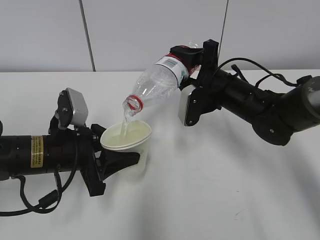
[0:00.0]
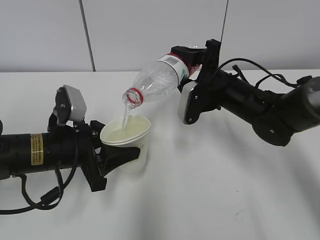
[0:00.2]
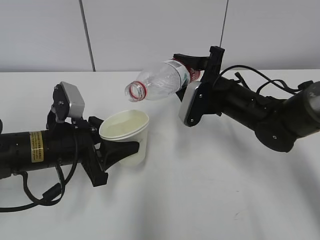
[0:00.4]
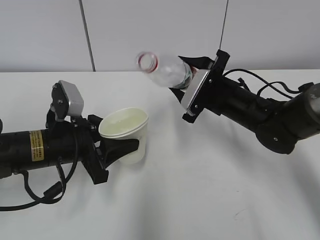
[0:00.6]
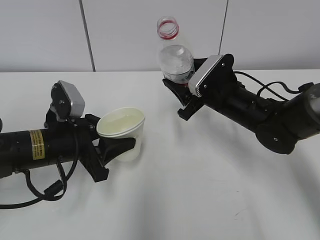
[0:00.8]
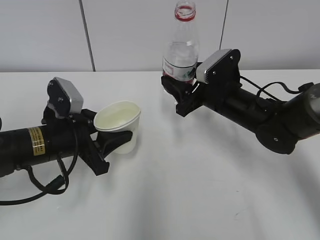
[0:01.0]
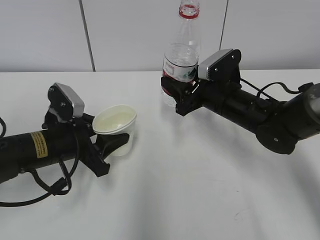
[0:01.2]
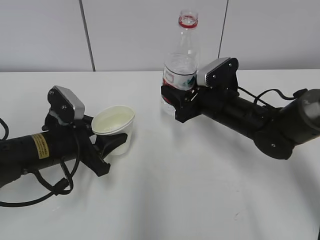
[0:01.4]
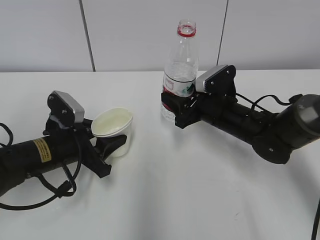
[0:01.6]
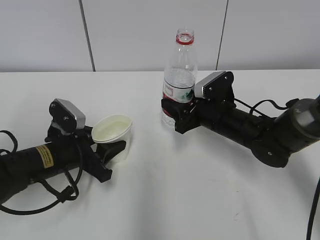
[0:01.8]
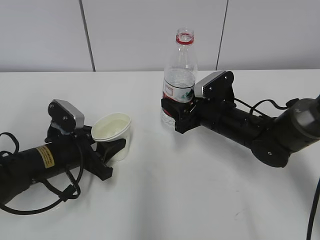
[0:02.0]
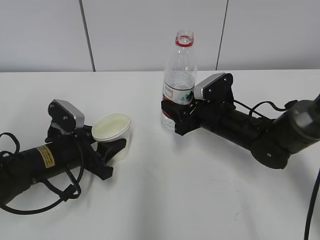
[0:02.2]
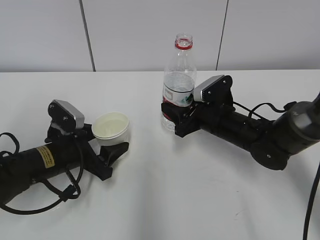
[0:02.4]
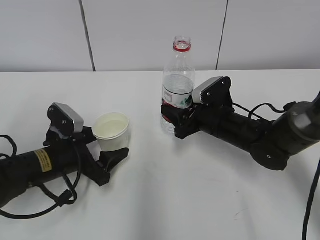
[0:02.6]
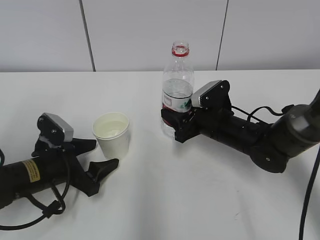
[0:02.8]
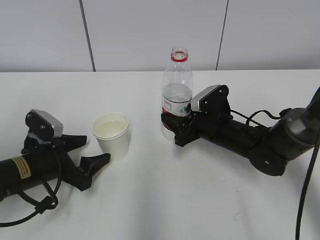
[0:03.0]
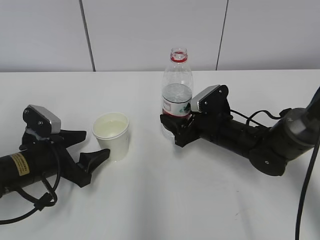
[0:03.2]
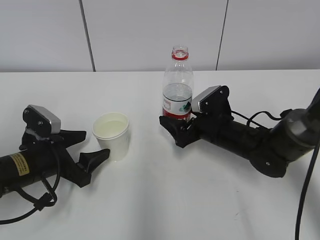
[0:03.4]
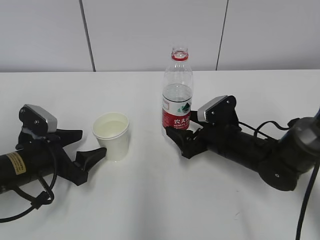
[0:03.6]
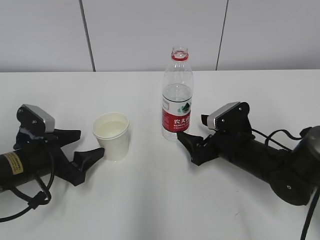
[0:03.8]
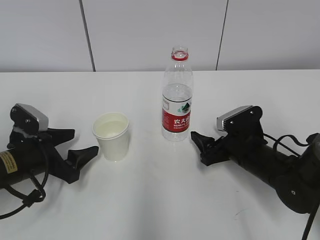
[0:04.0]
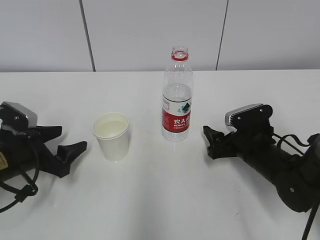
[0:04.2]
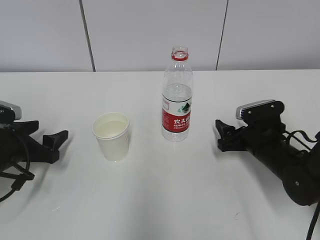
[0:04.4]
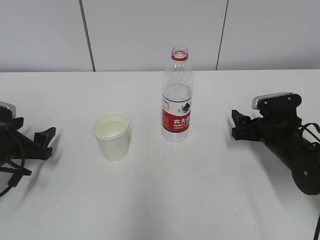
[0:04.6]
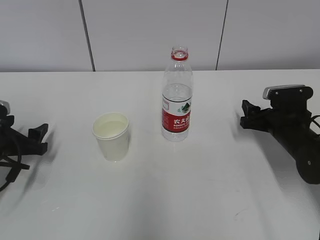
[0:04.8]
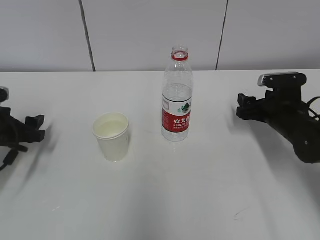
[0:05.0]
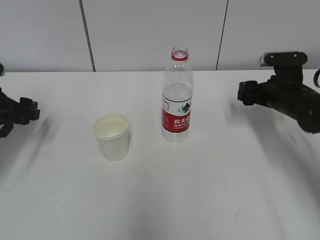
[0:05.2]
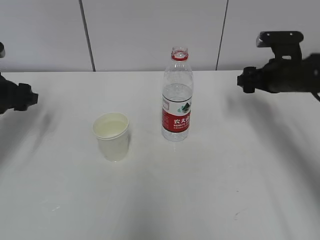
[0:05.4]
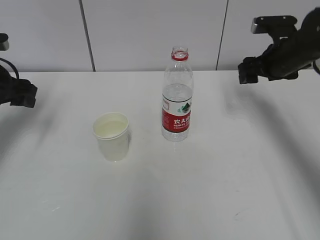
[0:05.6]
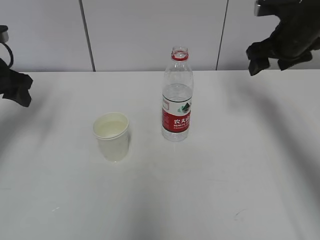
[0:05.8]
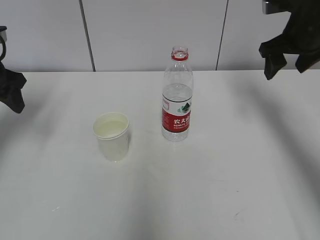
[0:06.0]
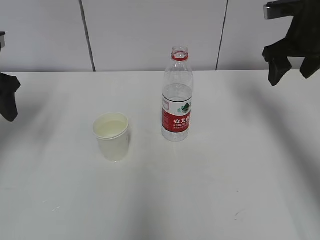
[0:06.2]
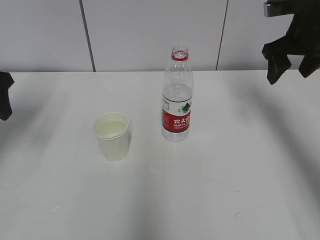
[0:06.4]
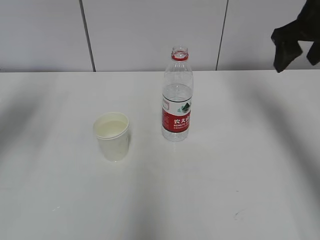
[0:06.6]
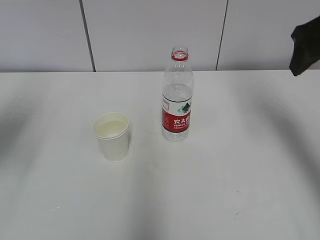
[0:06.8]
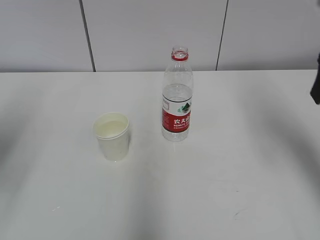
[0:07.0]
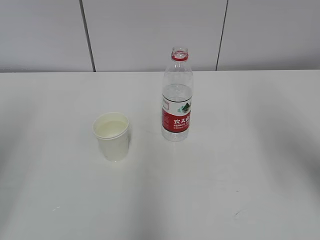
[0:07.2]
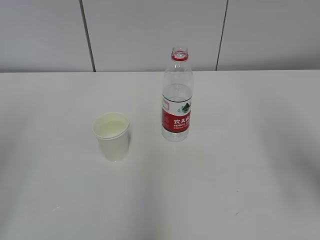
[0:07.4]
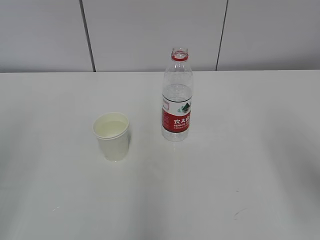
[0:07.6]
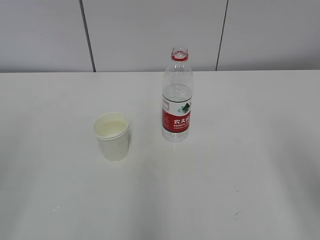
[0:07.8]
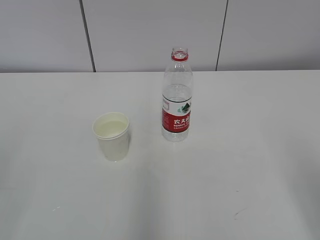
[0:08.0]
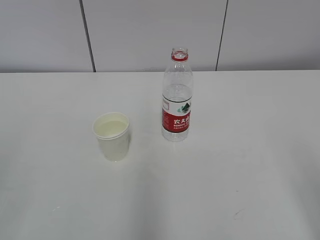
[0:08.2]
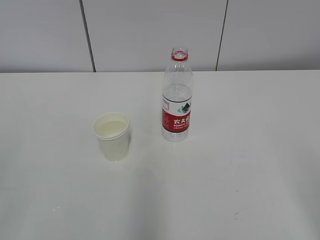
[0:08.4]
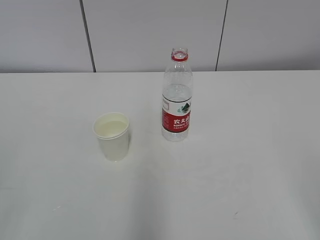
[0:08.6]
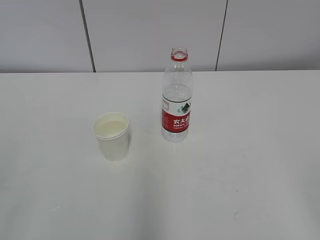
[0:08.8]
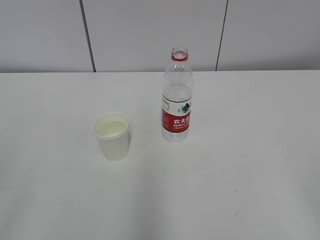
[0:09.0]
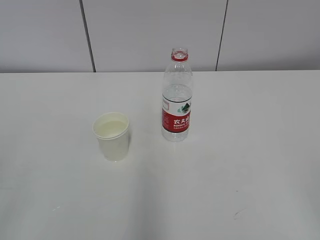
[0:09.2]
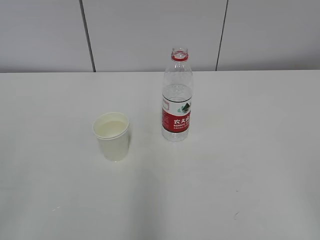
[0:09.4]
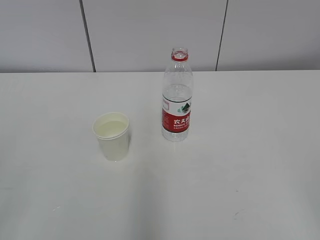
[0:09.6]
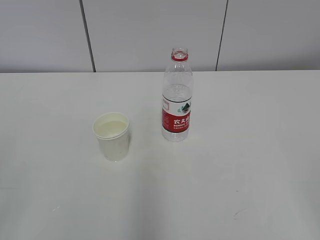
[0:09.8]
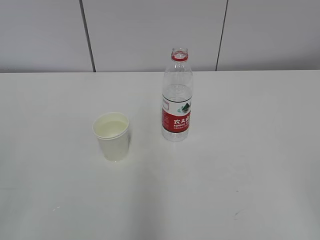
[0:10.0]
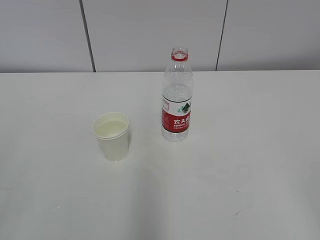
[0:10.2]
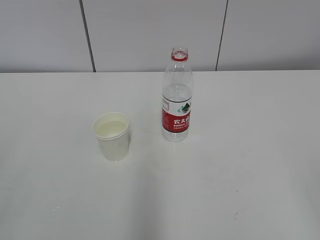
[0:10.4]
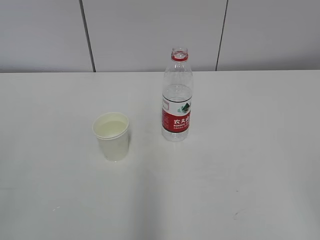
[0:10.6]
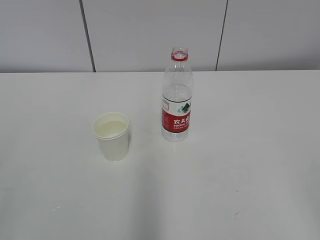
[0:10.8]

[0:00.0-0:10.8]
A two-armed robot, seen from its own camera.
0:01.6 to 0:03.0: The left gripper opens its fingers.
0:03.0 to 0:04.6: The left gripper shifts about 10 cm to the left, while the right gripper moves to the right, approximately 10 cm, and opens.
0:04.6 to 0:06.2: The grippers both shift upward by some 20 cm.
0:06.2 to 0:07.8: The two grippers go approximately 30 cm backward.
0:09.2 to 0:10.8: Neither gripper changes place.

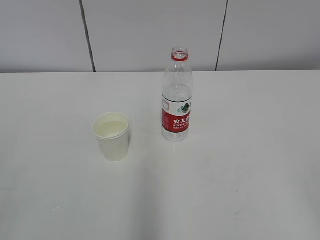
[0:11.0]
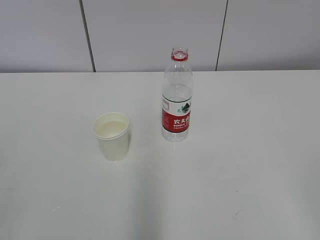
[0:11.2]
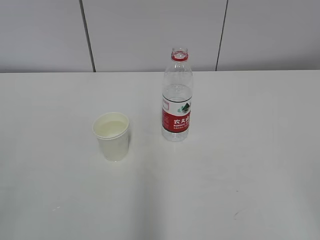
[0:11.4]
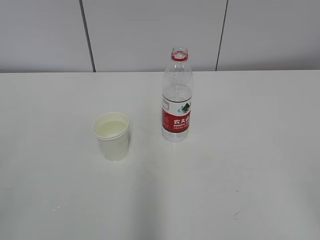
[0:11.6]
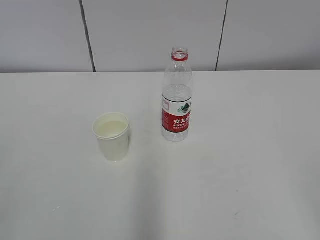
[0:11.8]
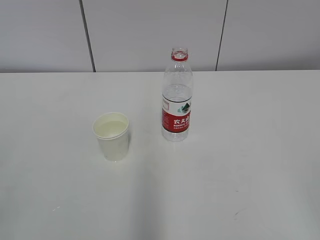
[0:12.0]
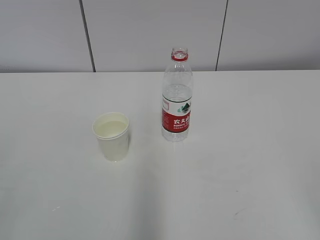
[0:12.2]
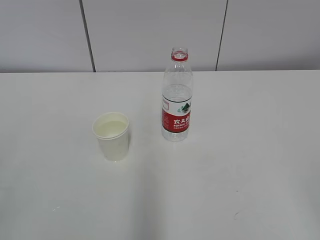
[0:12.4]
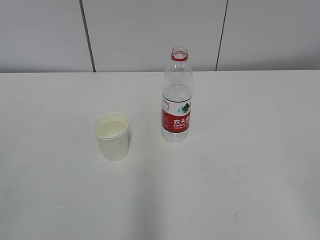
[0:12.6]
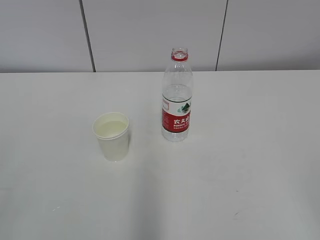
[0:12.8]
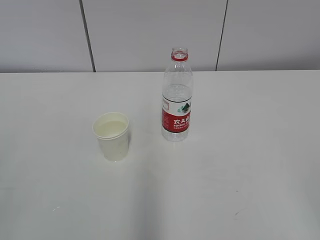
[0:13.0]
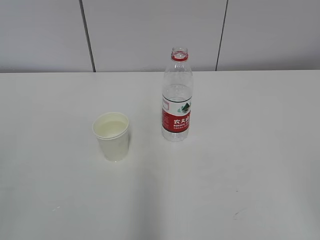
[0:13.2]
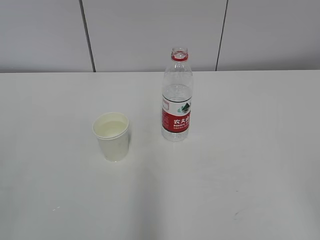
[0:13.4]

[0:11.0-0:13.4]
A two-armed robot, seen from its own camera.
0:11.0 to 0:13.4: Neither gripper changes place.

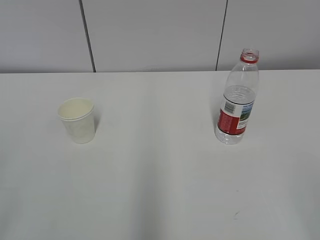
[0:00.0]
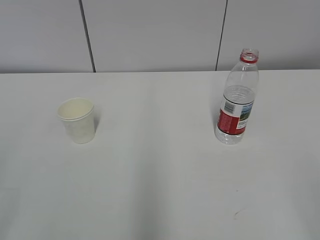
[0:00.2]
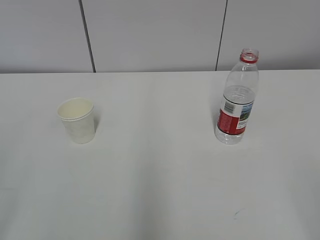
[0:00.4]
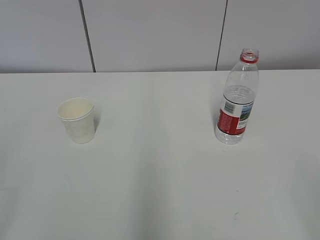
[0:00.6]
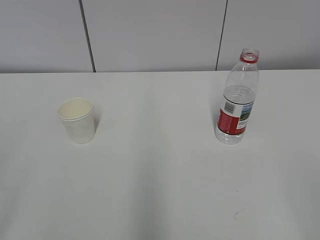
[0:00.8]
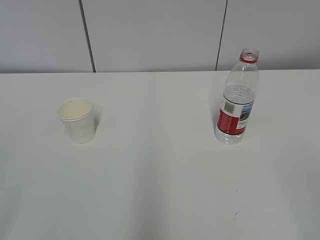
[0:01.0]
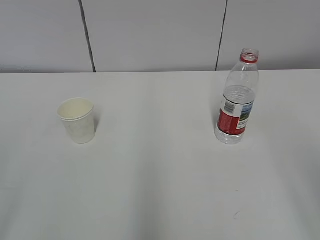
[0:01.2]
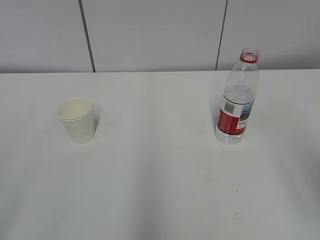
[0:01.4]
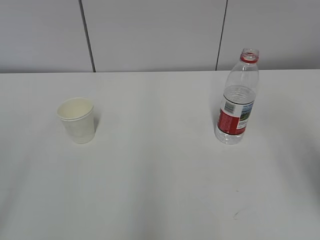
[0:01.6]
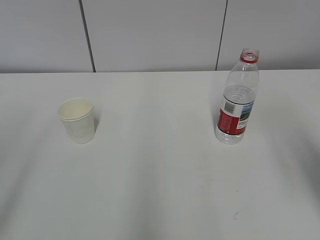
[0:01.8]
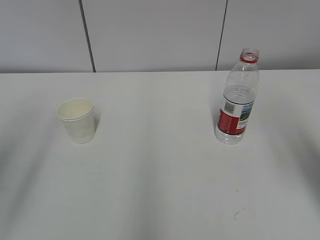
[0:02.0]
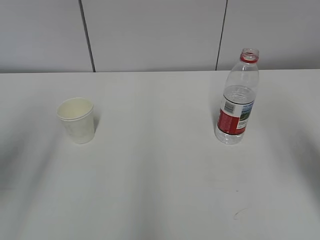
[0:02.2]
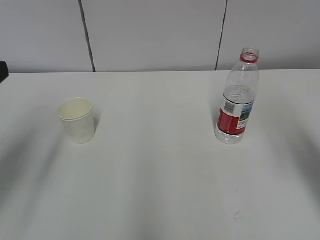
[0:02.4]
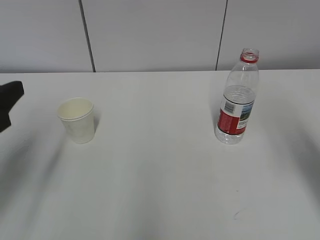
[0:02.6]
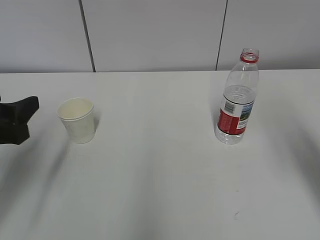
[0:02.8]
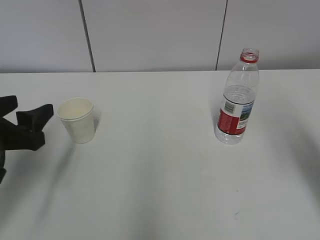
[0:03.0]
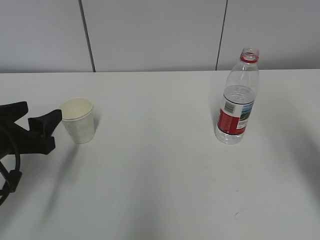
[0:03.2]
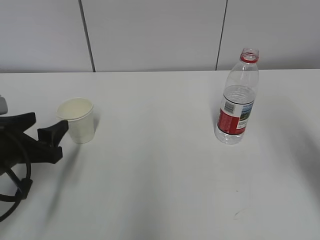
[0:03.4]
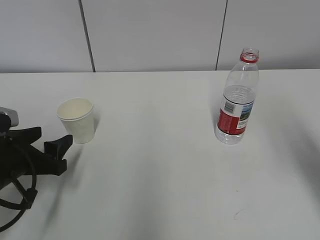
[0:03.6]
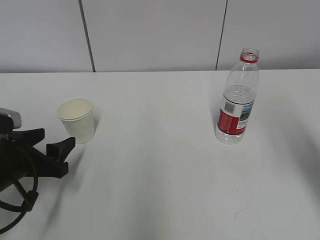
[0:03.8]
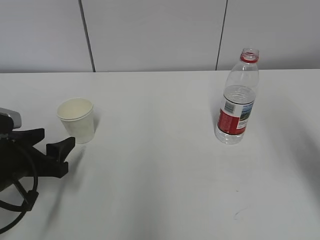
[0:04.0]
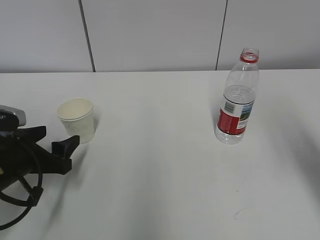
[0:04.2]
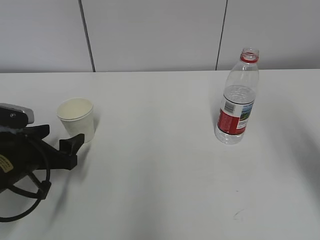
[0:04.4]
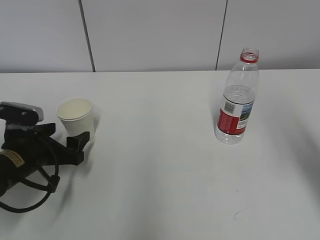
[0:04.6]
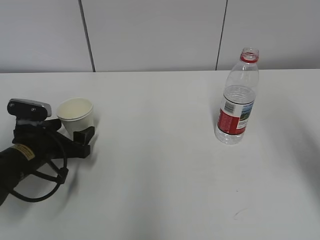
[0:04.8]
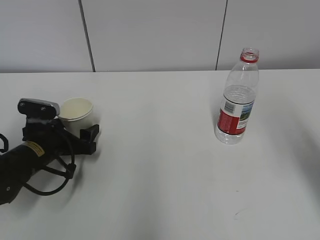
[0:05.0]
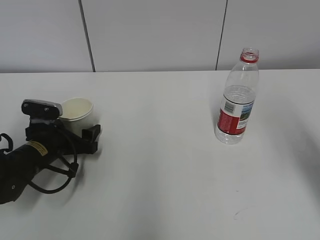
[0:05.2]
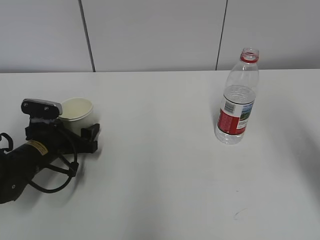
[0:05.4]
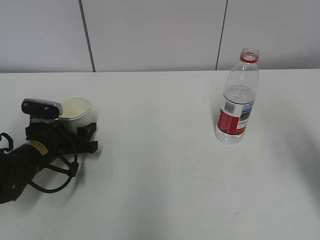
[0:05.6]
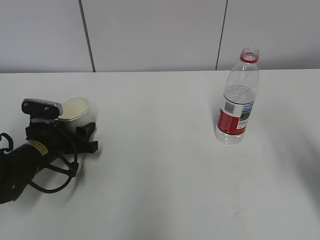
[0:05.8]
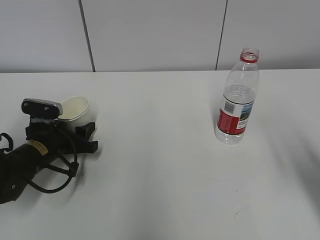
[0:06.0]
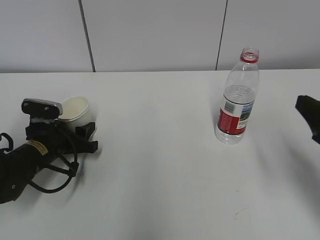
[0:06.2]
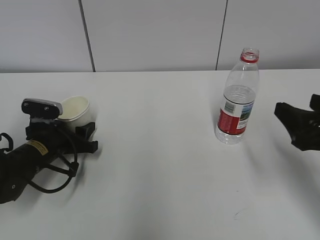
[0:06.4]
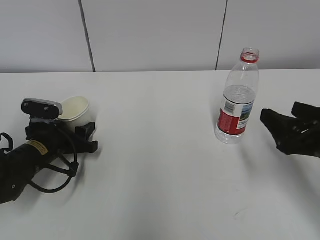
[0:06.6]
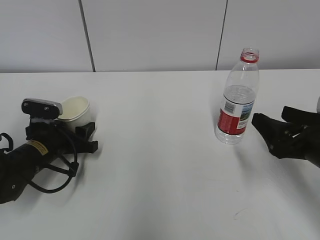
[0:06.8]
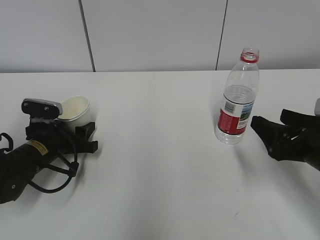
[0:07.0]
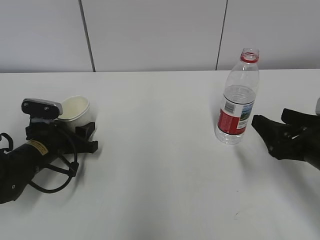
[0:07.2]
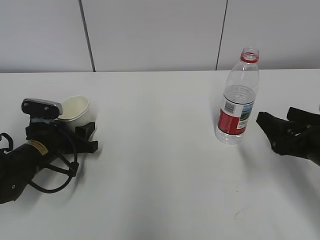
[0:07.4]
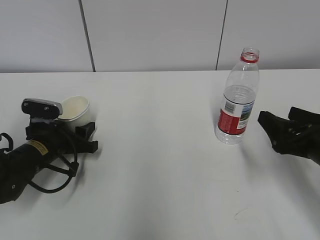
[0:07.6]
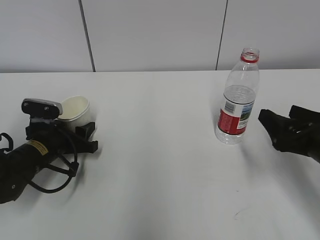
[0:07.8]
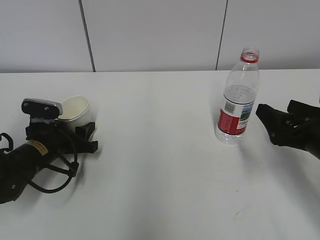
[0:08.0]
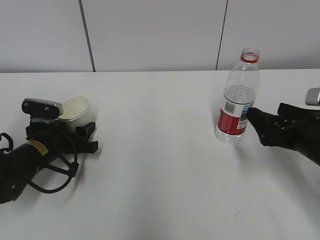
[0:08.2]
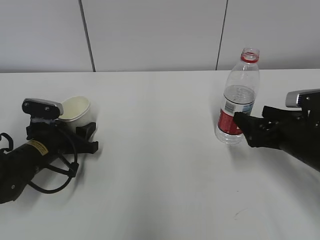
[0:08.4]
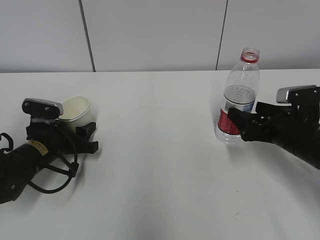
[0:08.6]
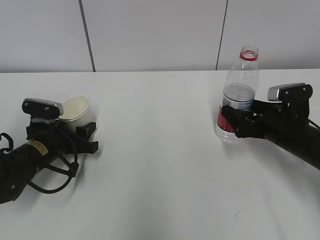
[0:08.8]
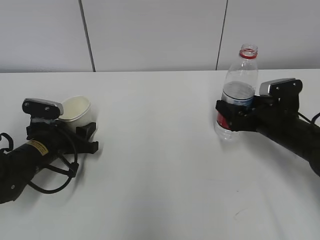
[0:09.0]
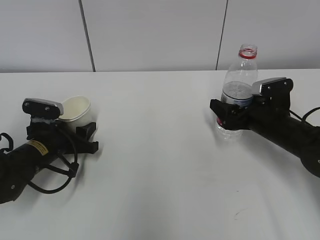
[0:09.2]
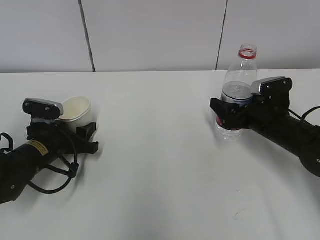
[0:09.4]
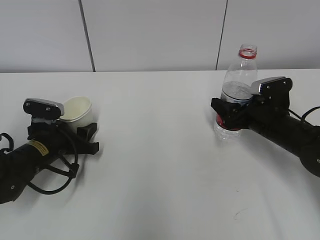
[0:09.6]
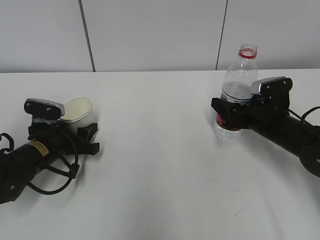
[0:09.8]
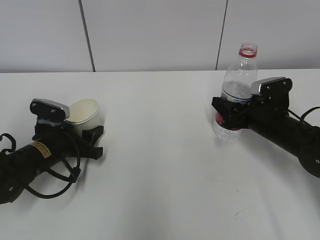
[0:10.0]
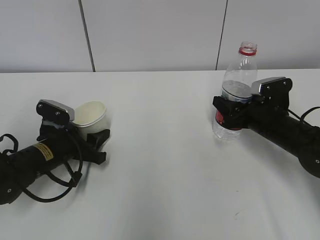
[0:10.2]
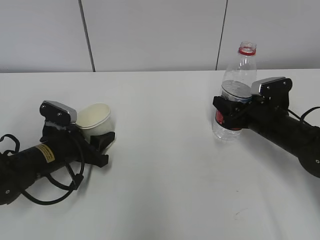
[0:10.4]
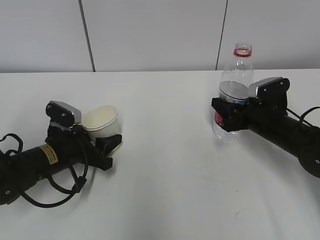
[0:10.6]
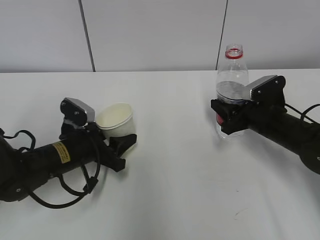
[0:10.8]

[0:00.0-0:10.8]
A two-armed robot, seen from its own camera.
Step, 0:00.0 to 0:08.0: Grab the paper cup with the left hand.
Step, 0:08.2 to 0:08.6: Grab the water bottle with the right hand.
0:01.6 to 0:03.0: The left gripper travels forward and downward by roughly 25 cm.
0:03.0 to 0:04.6: The left gripper heads downward and forward, covering roughly 10 cm.
0:04.6 to 0:06.2: The left gripper shifts approximately 5 cm forward, and closes up, while the right gripper travels downward by about 10 cm.
0:06.2 to 0:07.8: The right gripper is displaced downward and forward by approximately 10 cm.
0:07.8 to 0:09.2: The right gripper is displaced forward and downward by about 15 cm.
0:09.2 to 0:10.8: The left gripper heads to the right, covering some 5 cm. Meanwhile the right gripper closes its fingers.
